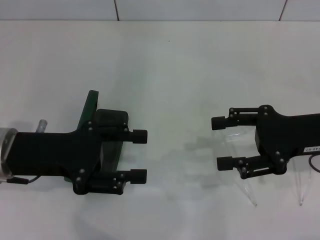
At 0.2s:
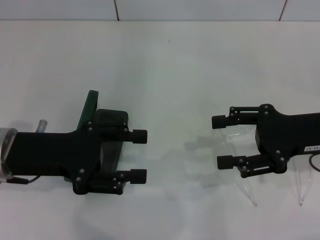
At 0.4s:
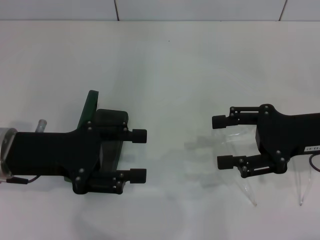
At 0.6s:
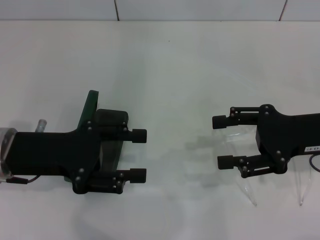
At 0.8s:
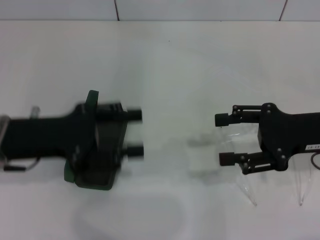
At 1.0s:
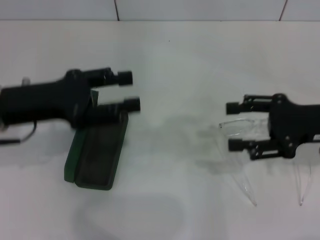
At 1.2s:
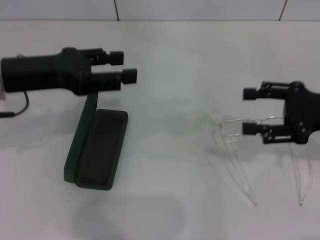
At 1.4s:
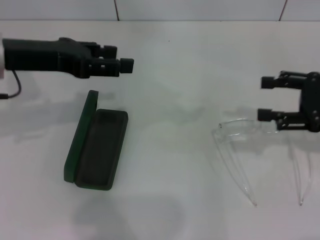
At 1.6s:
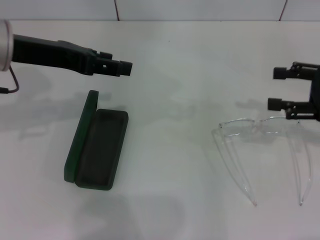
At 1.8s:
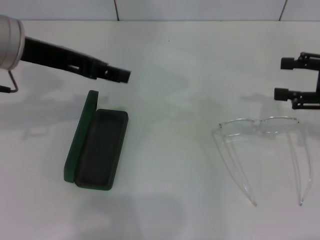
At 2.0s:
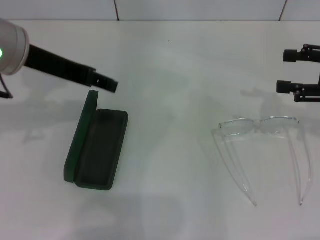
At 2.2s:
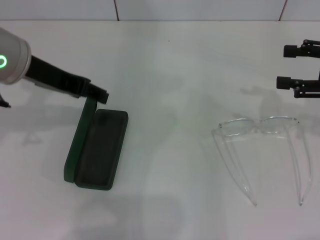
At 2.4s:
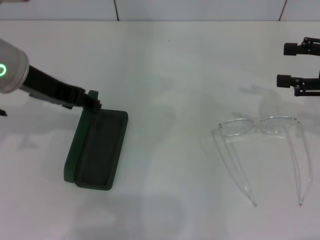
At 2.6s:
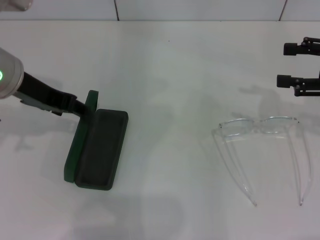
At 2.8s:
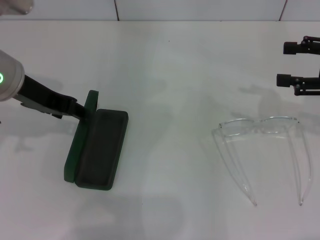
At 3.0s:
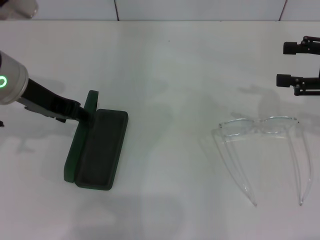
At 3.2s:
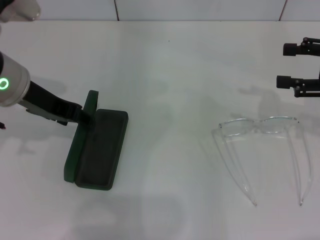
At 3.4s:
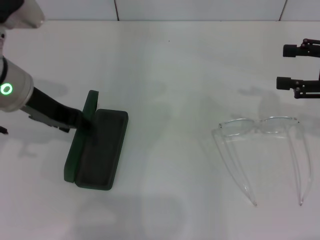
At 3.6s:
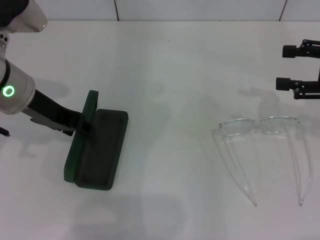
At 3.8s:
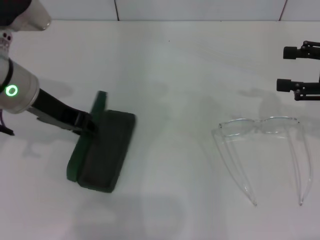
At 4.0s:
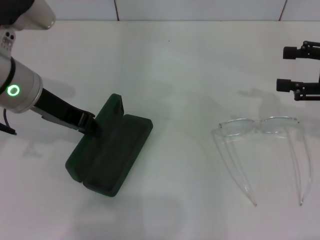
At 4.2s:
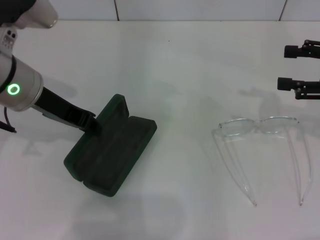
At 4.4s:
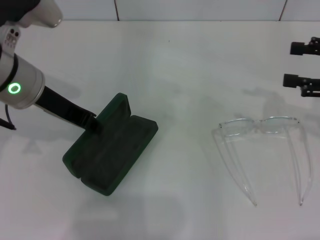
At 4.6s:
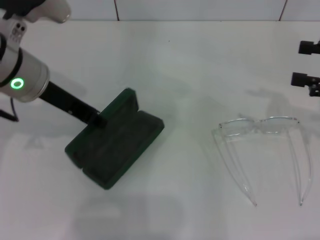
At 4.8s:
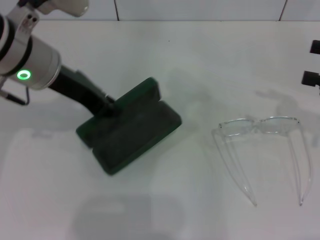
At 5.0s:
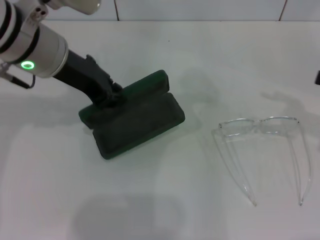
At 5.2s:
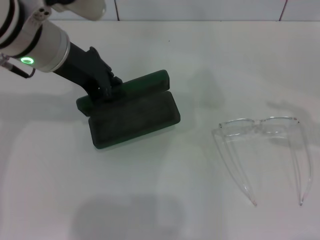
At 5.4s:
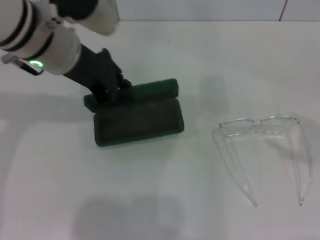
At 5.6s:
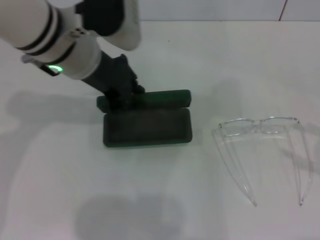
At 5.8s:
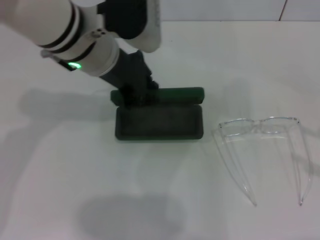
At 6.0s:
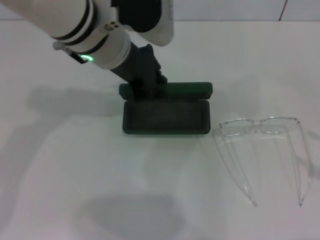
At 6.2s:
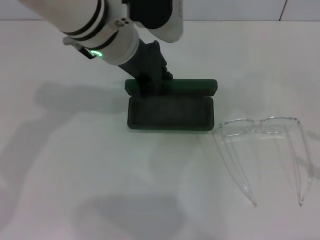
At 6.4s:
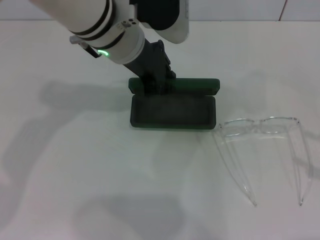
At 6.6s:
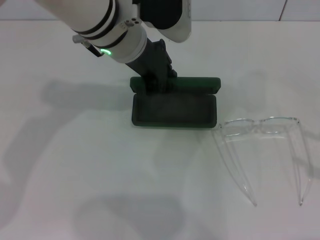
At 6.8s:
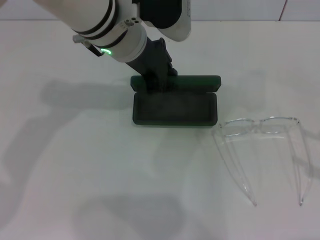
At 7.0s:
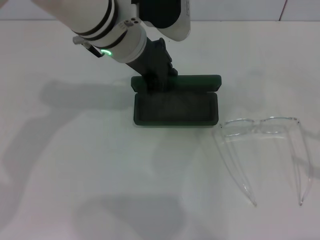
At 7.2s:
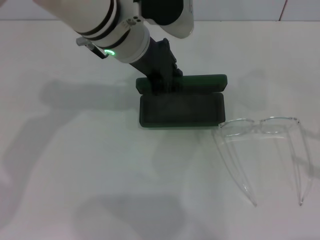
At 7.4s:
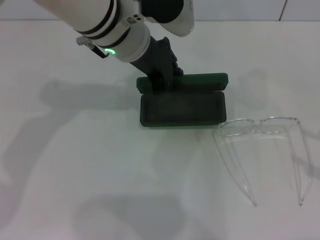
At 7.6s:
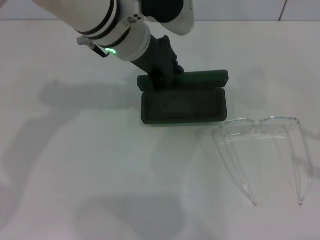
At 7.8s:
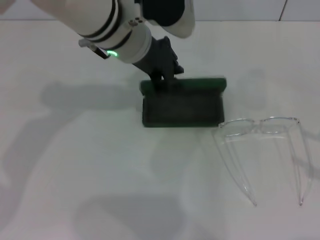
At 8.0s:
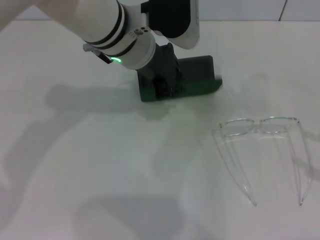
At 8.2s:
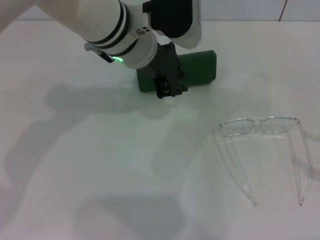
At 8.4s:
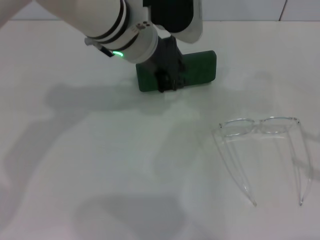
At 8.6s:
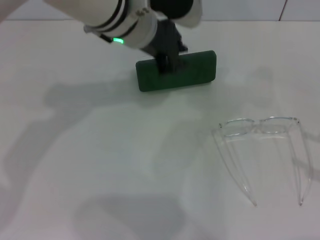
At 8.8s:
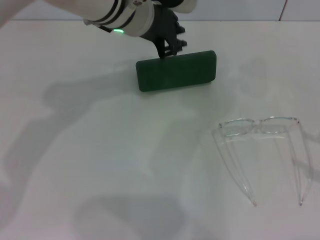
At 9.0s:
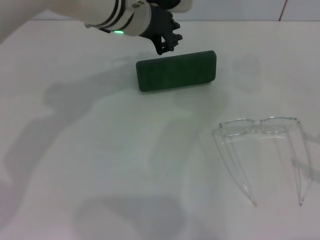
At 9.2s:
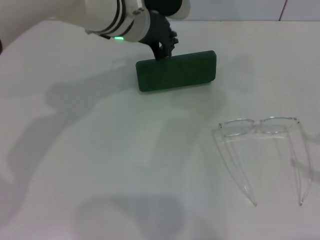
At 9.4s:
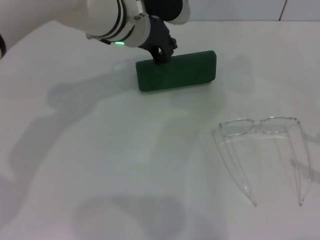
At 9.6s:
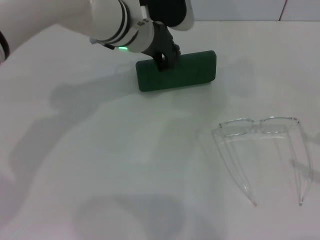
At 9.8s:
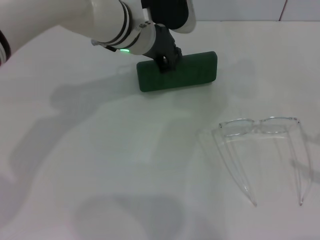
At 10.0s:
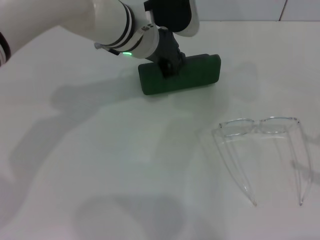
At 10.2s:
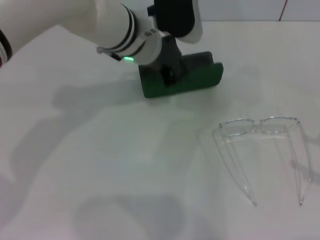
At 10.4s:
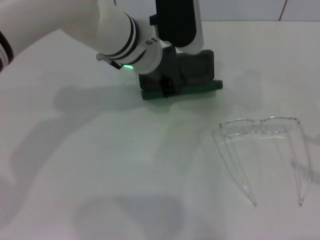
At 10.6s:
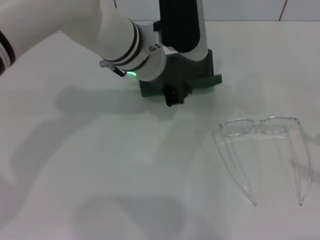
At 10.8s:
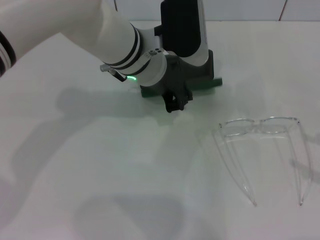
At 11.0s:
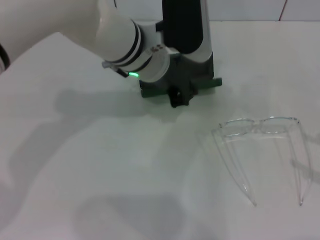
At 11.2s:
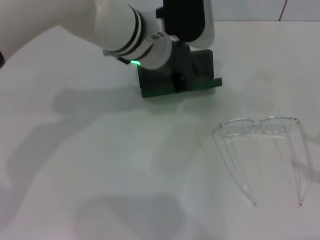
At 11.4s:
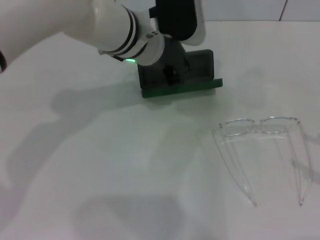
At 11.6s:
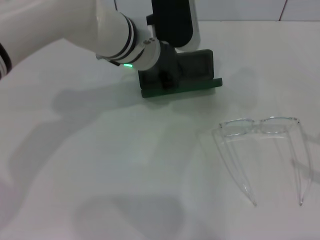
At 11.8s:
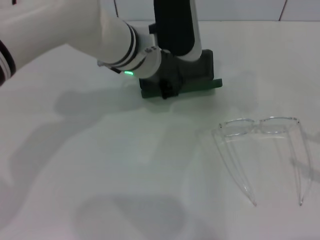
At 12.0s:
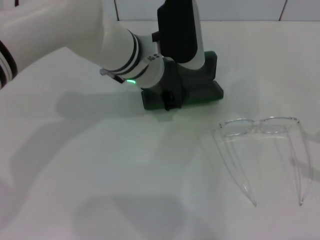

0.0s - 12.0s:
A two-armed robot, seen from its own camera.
Step, 0.0s - 4.2s: Grab the glasses case with your left hand.
Step, 4.4s - 8.2s: Place the glasses case in the center of the table with your left hand.
0.0s - 1.6s: The left gripper goes about 15 cm upward and forward, while the right gripper travels to the right by roughly 10 cm.
3.0s - 4.4s: The left gripper closes up.
4.4s - 6.0s: The left gripper travels to the right by some 10 cm, while the right gripper shifts about 15 cm backward and to the right.
6.0s - 7.6s: The grippers make only small movements.
7.6s - 10.4s: The grippers stay close to where they were, moving slightly.
10.4s - 12.0s: There are only small adjustments of the grippers.

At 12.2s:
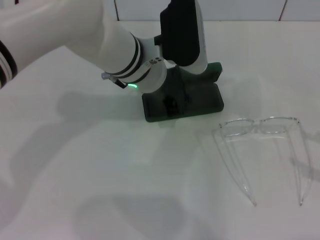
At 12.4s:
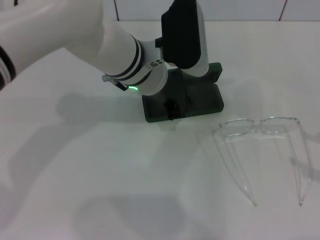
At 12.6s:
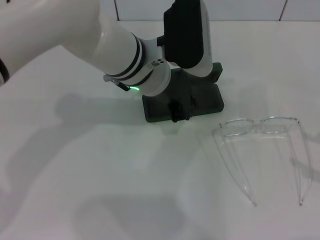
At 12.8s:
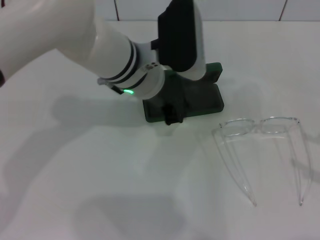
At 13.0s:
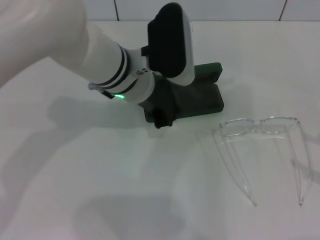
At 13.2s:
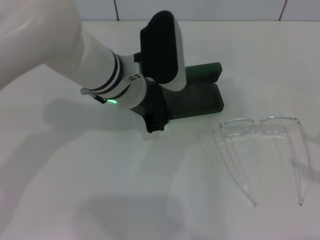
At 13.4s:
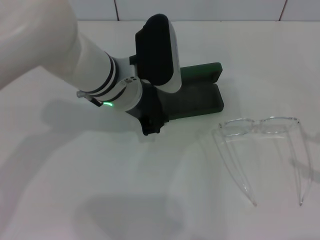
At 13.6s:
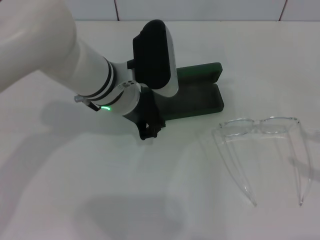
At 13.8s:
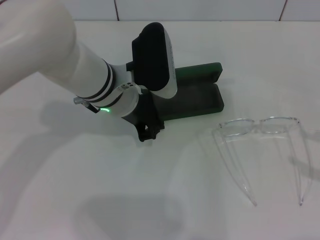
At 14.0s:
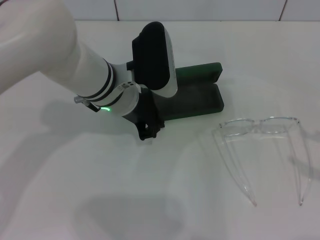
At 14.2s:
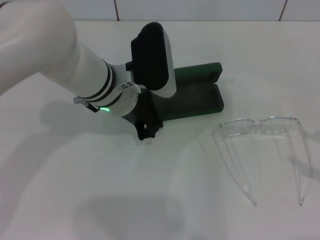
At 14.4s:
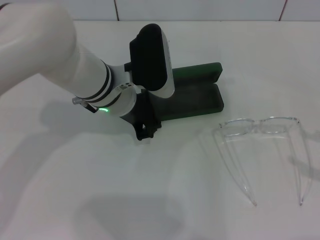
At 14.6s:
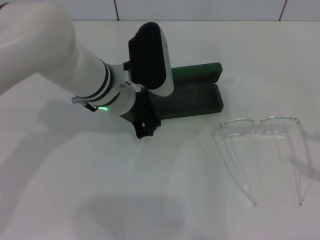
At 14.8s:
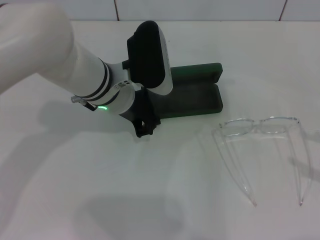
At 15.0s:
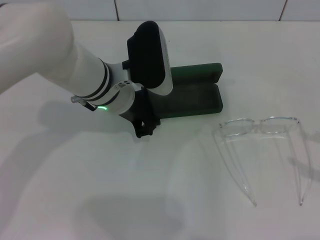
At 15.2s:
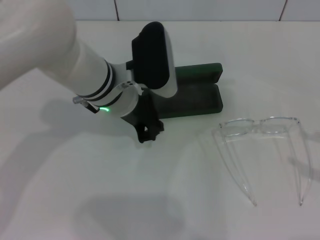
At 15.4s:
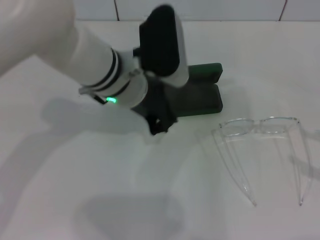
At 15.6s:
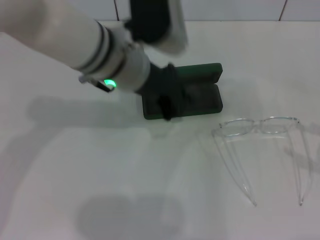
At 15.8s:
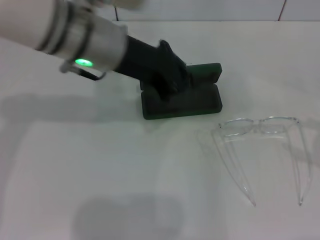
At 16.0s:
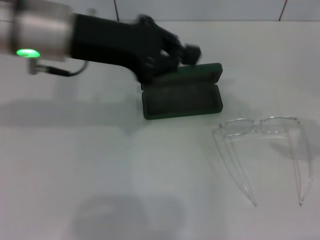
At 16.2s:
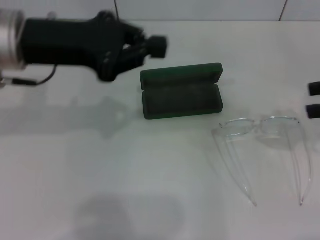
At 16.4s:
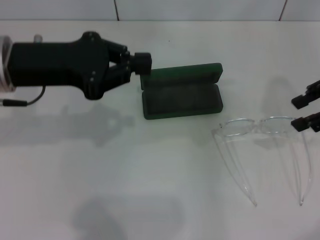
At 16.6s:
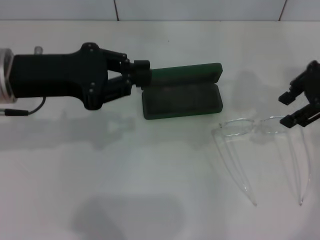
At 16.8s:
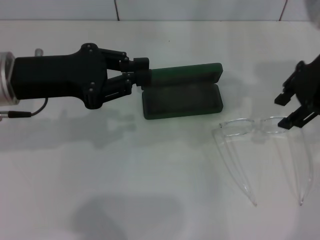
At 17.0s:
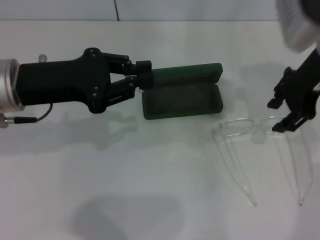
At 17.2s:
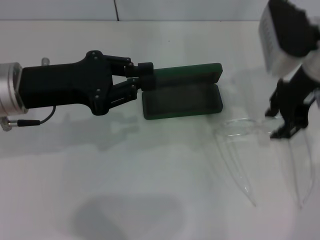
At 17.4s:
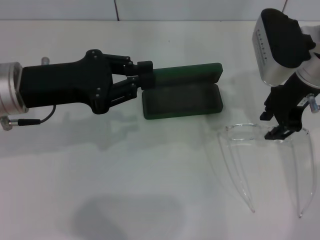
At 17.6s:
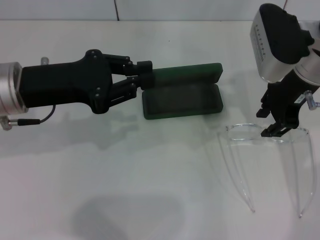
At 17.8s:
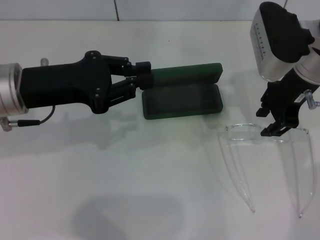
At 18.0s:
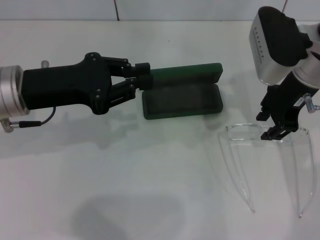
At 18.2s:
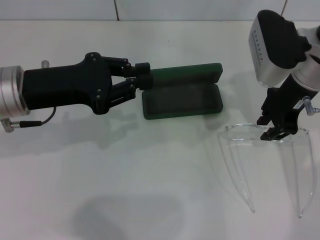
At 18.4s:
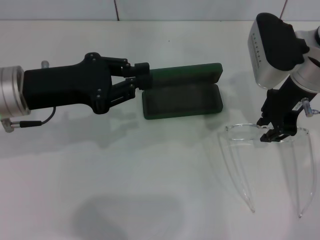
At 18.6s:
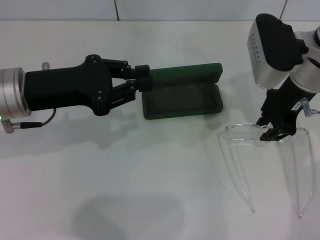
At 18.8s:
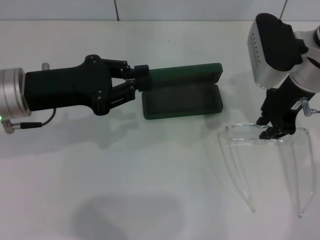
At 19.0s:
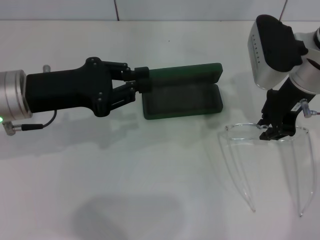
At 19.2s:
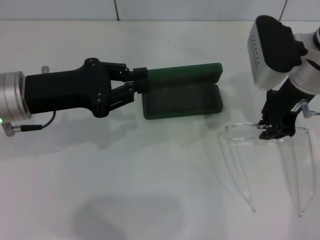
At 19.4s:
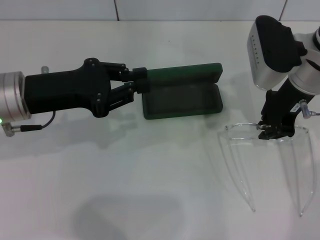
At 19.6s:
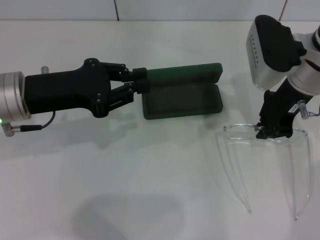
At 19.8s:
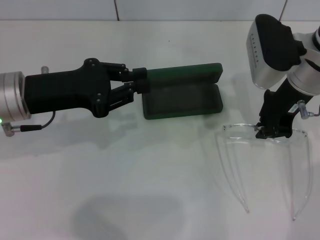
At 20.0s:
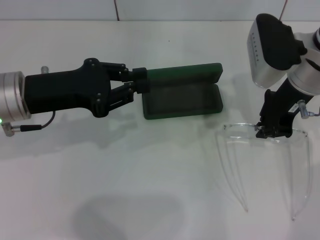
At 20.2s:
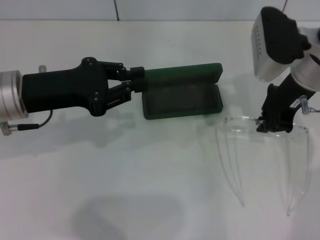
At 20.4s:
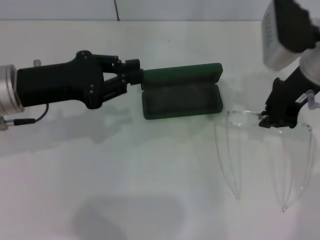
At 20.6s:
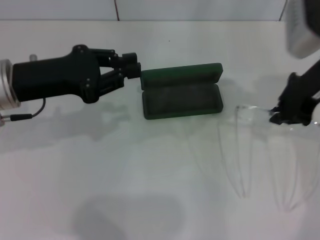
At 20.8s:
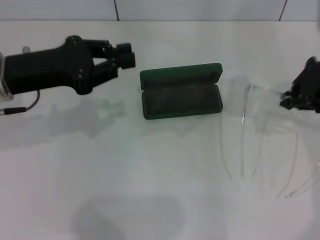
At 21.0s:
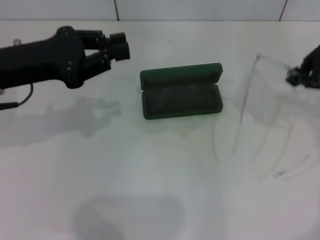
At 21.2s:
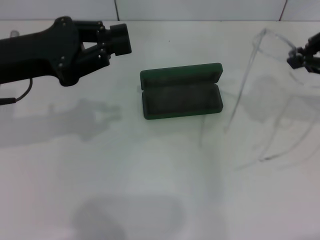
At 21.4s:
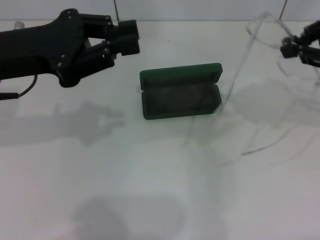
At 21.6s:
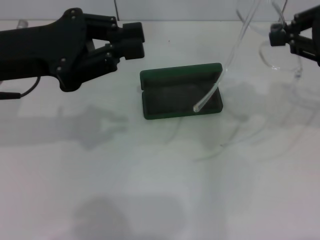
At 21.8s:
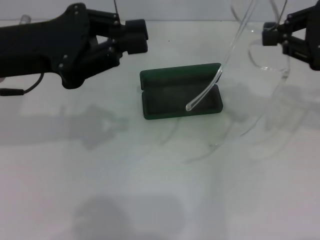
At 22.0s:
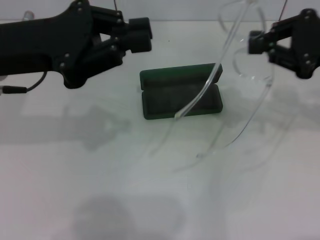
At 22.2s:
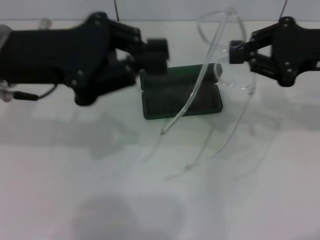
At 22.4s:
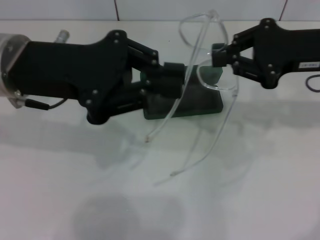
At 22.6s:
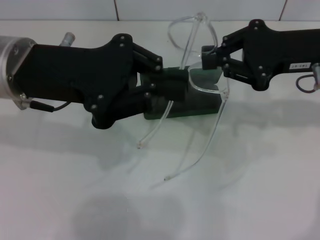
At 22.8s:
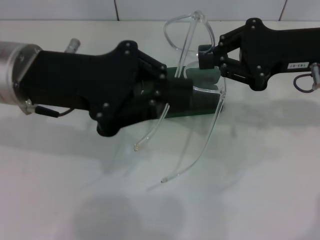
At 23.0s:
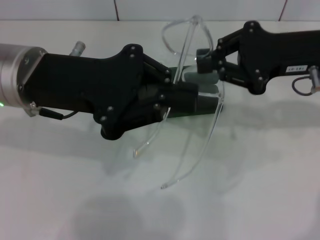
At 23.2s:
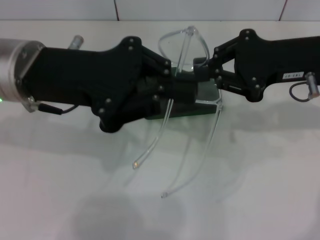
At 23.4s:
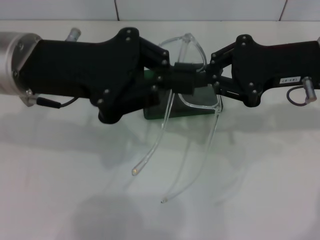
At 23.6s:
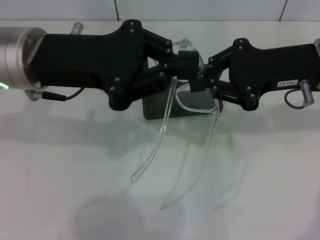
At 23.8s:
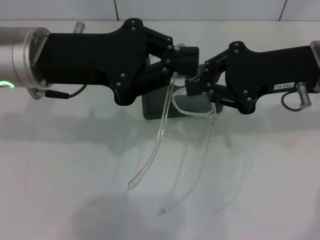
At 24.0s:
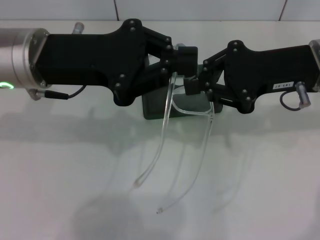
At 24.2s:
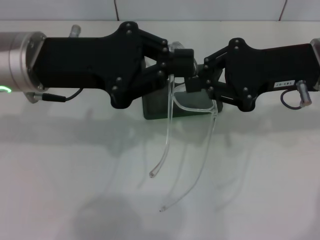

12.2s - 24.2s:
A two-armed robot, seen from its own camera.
Step, 12.2s - 19.4s: Grab the eyeglass frame with your right hand.
12.2s - 13.8s: The grippers make only small movements.
13.8s - 15.2s: The two grippers keep their place.
15.2s - 16.6s: The left gripper goes approximately 15 cm to the left and upward; the right gripper moves forward, to the left and upward, roughly 25 cm.
16.6s - 18.2s: The right gripper shifts approximately 10 cm to the left and downward.
18.2s - 19.8s: The two grippers keep their place.
19.8s - 21.2s: The right gripper moves to the right, upward and backward, about 15 cm.
21.2s - 22.6s: The right gripper heads downward and to the left, covering roughly 10 cm, while the left gripper travels to the right by some 5 cm.
22.6s - 24.2s: The grippers make only small movements.
